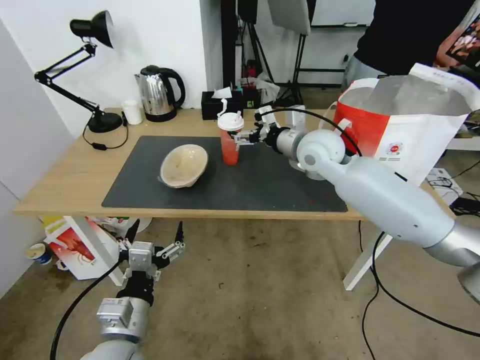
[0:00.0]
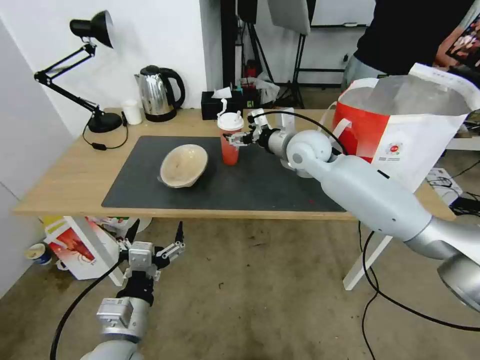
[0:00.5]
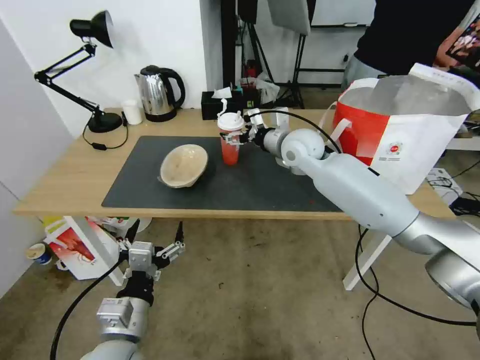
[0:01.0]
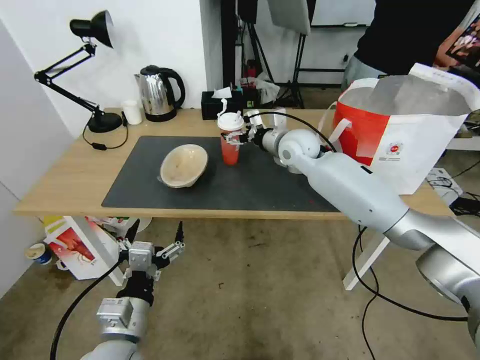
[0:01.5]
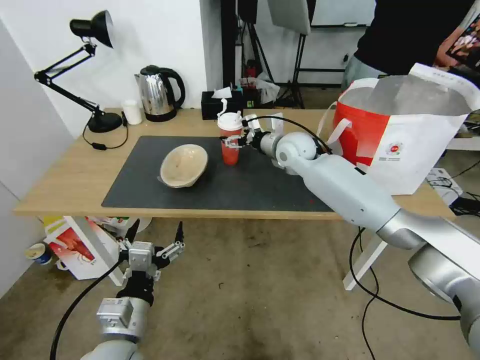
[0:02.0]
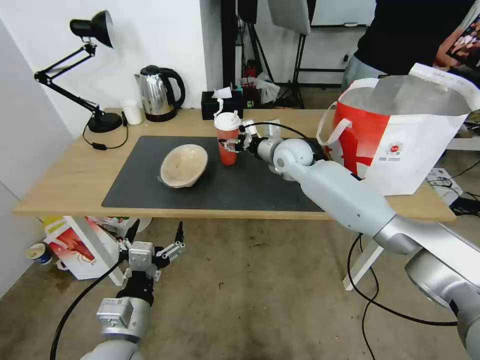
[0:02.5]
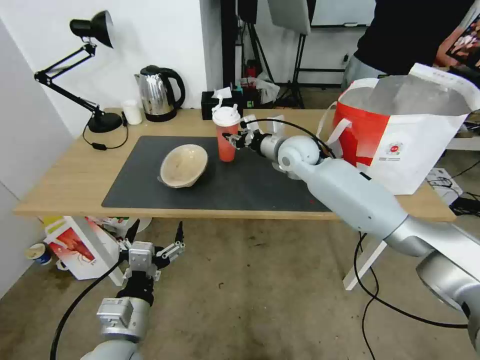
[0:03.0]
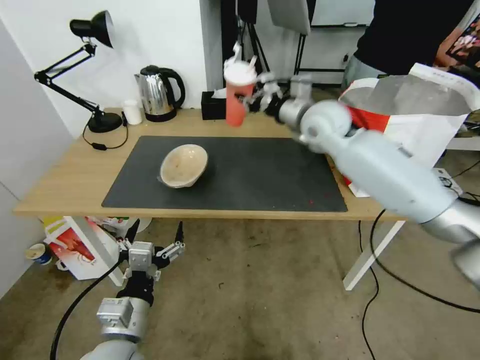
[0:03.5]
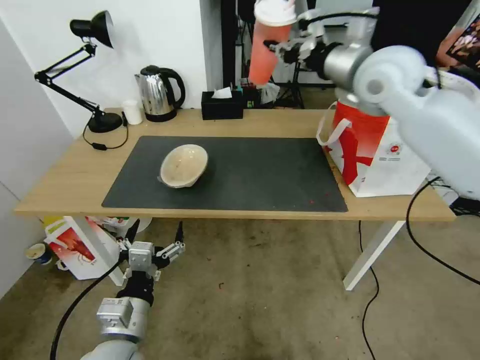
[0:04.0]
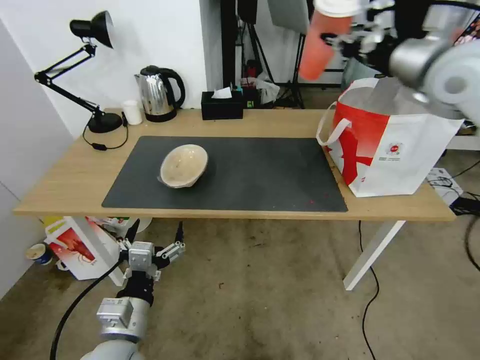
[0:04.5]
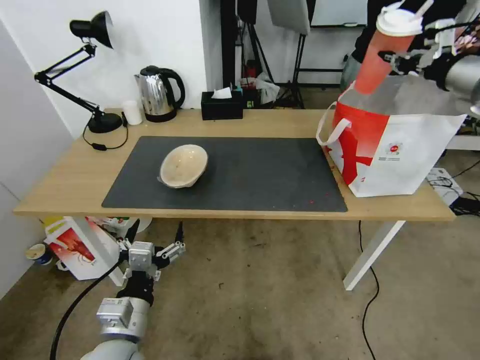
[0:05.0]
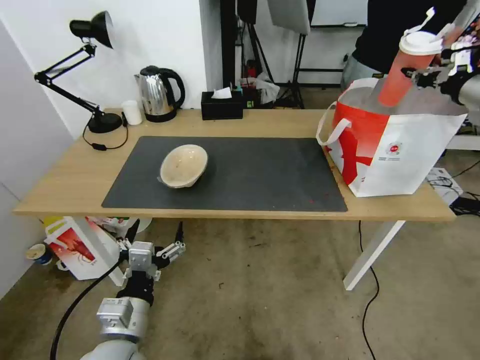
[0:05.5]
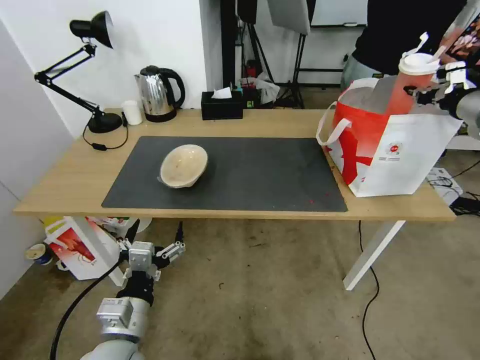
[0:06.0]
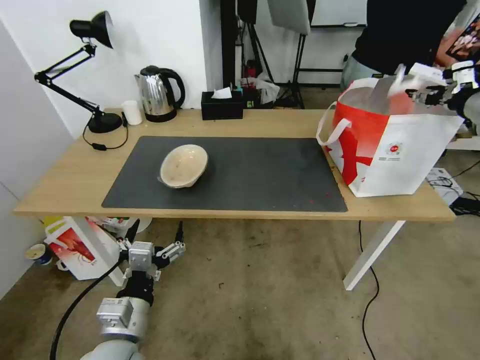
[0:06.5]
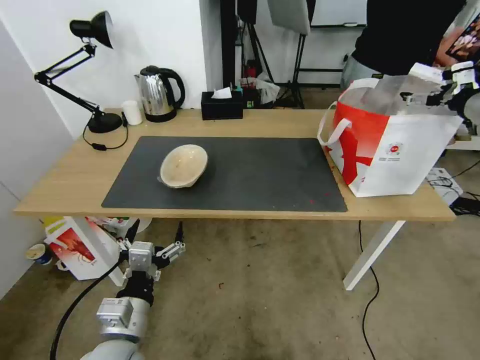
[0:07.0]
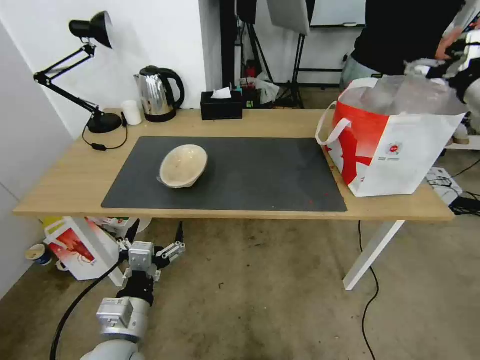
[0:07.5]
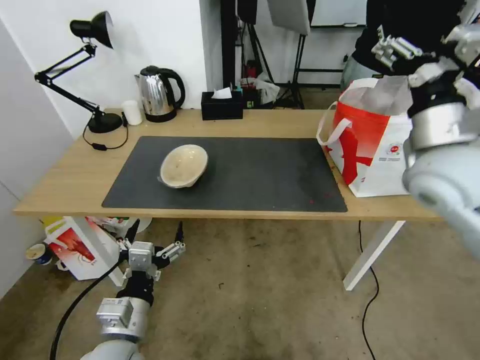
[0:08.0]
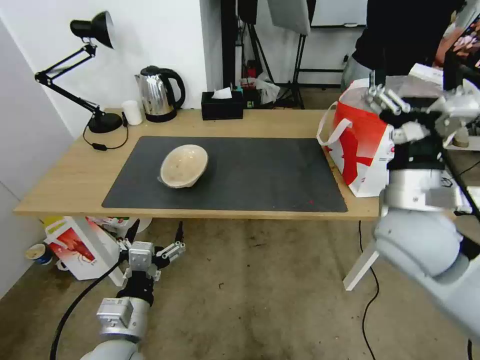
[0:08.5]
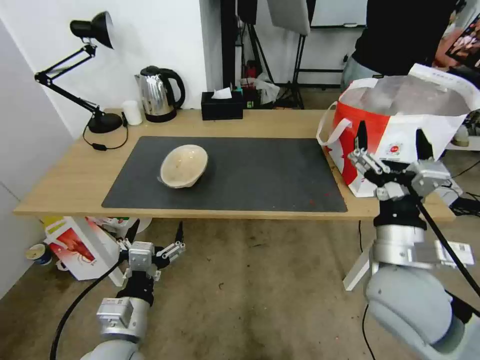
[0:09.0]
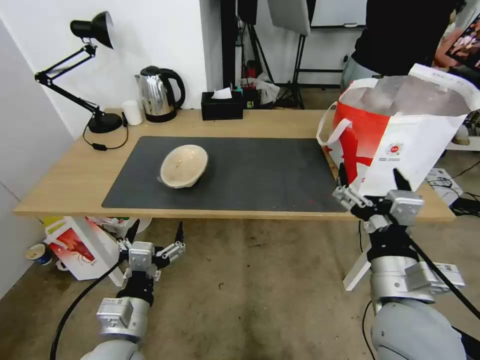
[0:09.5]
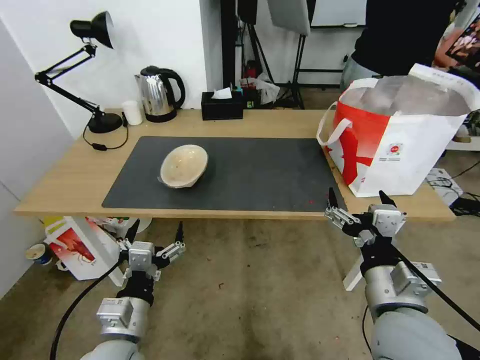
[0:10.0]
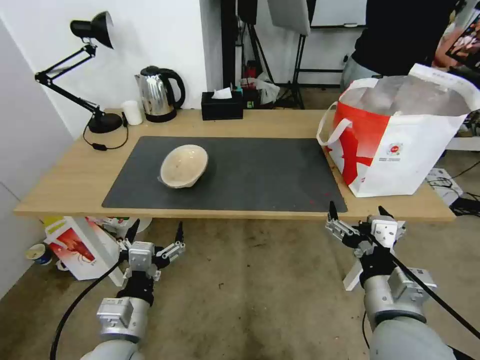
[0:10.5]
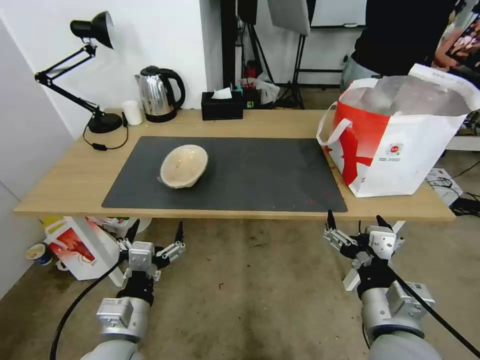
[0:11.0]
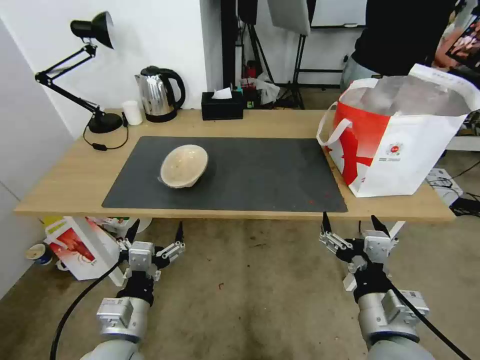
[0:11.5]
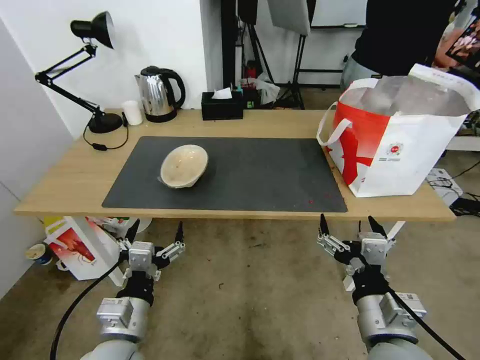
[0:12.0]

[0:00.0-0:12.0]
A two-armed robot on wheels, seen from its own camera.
Task of the whole recording: Pick up the trash from the table and place it into the takeout bag.
0:00.0 to 0:02.0: The right gripper is displaced forward by roughly 5 cm.
0:02.0 to 0:04.0: The right gripper heads upward and to the right, covering about 25 cm, and closes up.
0:04.0 to 0:06.0: The right gripper is displaced to the right by approximately 25 cm.
0:06.0 to 0:08.0: The right gripper shifts about 25 cm to the left and backward, and opens up.
0:08.0 to 0:10.0: The right gripper shifts roughly 25 cm backward, downward and to the left.
0:10.0 to 0:12.0: There are only small adjustments of the grippers.

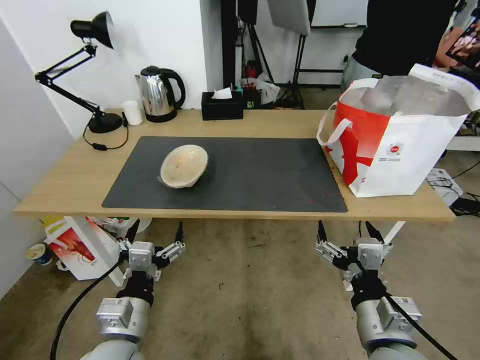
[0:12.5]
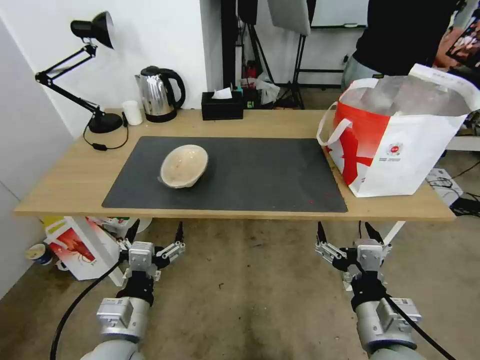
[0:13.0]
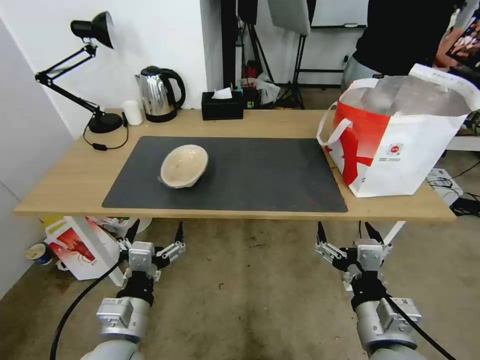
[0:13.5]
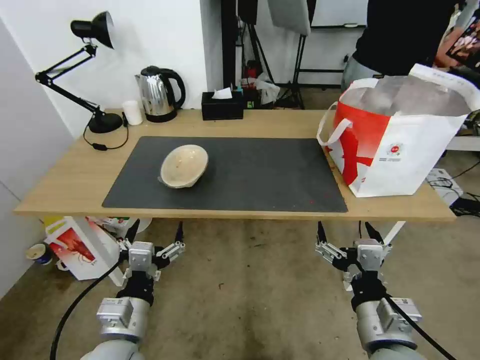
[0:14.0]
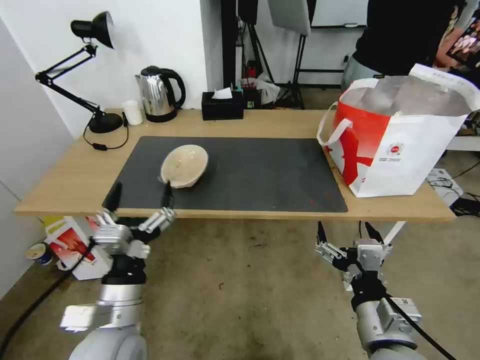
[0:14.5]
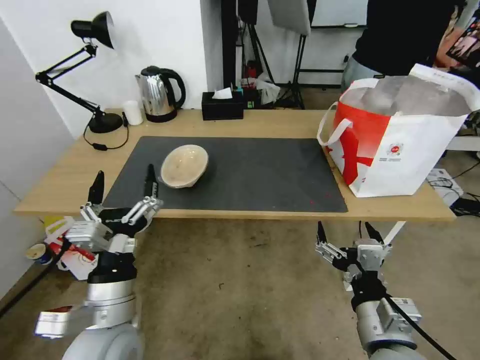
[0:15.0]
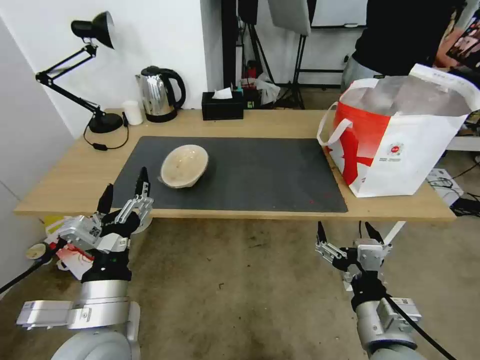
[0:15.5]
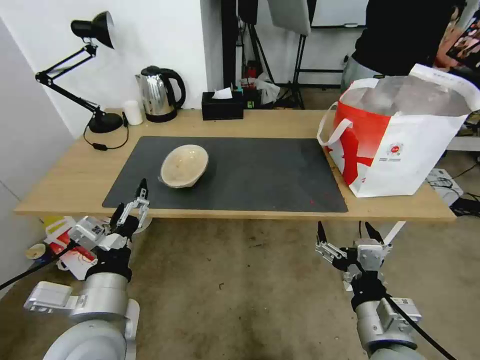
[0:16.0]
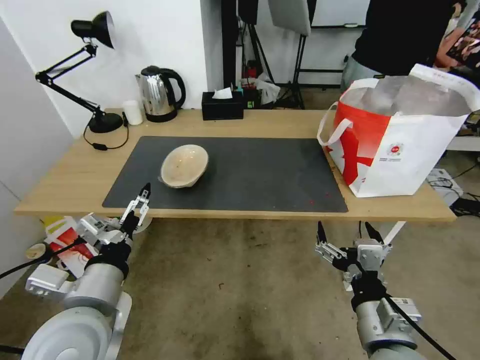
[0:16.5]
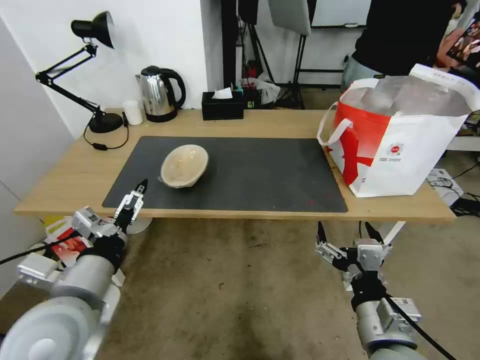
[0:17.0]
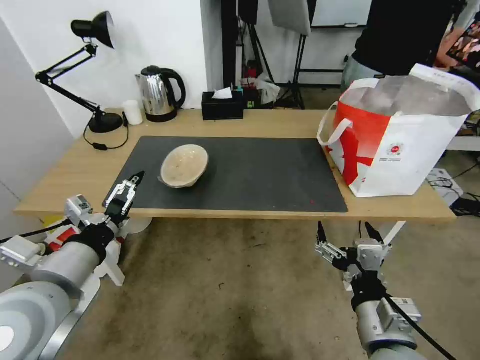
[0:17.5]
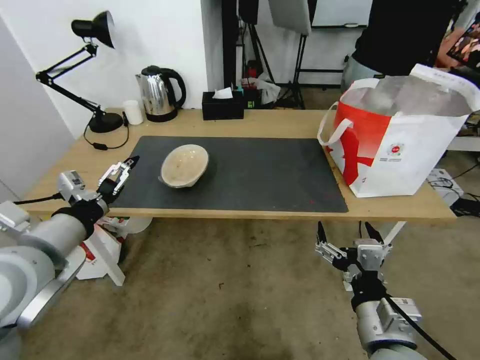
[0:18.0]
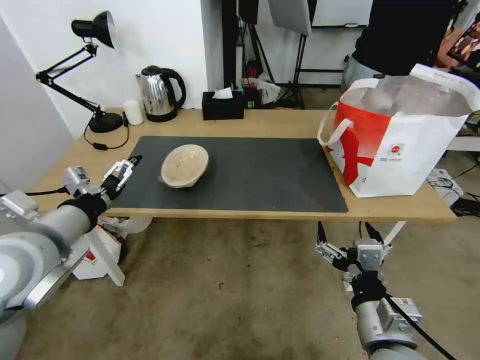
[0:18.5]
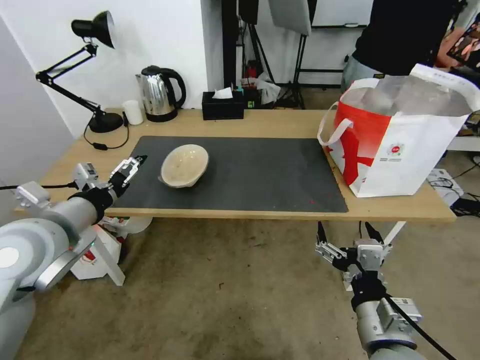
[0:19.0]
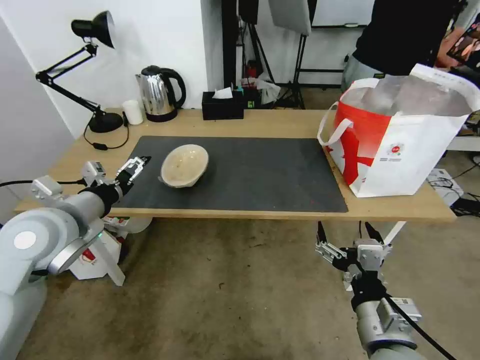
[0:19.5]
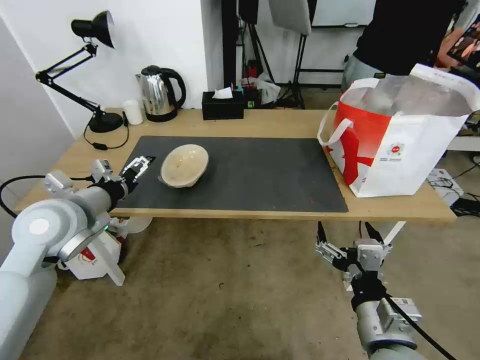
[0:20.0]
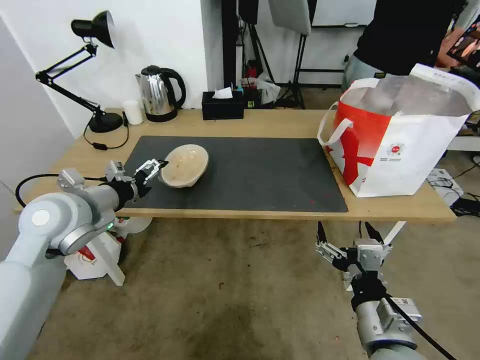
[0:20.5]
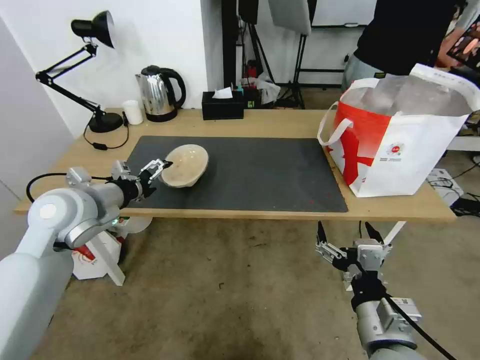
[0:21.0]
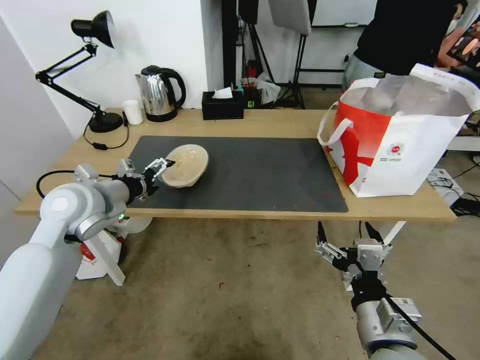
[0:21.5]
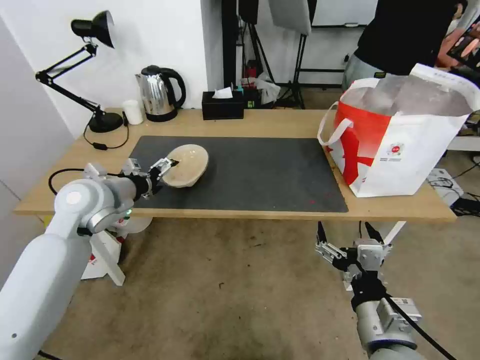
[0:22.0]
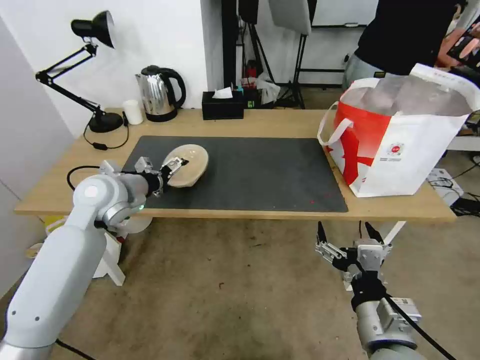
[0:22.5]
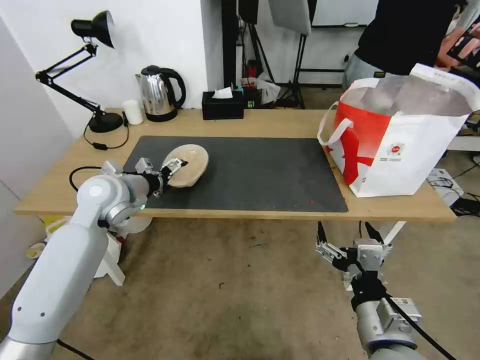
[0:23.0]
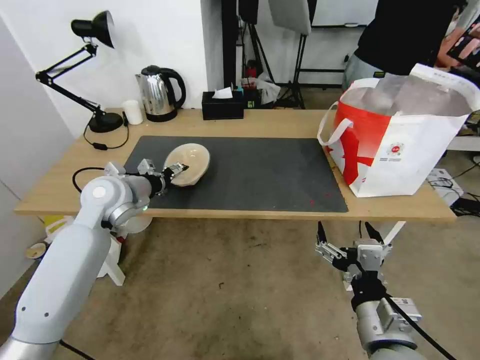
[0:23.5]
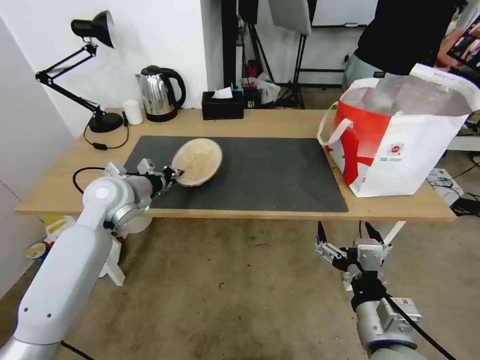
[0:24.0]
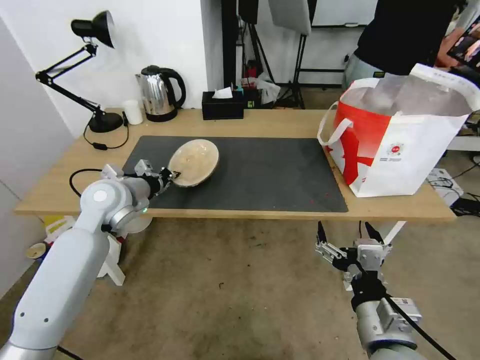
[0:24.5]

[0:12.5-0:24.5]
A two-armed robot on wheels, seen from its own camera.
Task of the whole recording: Pick up the trash from the table and place it into the takeout bag.
0:14.5 to 0:16.5: The left gripper shifts roughly 5 cm upward.
0:16.5 to 0:18.5: The left gripper heads to the left, forward and upward, covering approximately 15 cm.
0:18.5 to 0:20.5: The left gripper shifts approximately 10 cm forward.
0:20.5 to 0:22.5: The left gripper heads forward, covering some 10 cm.
0:22.5 to 0:24.5: The left gripper closes its fingers.

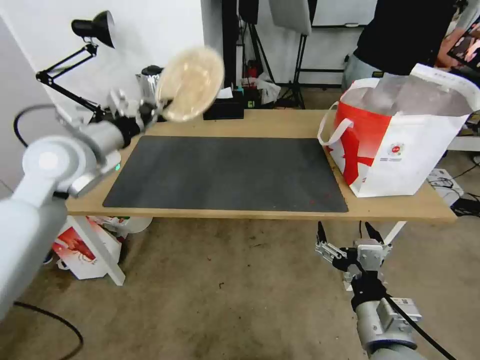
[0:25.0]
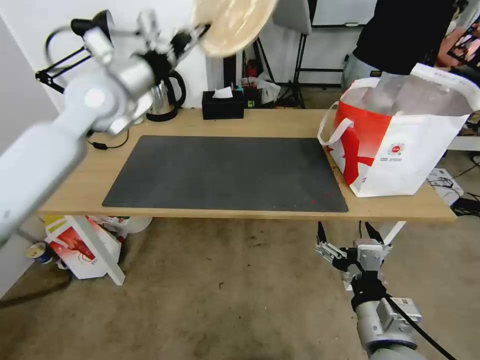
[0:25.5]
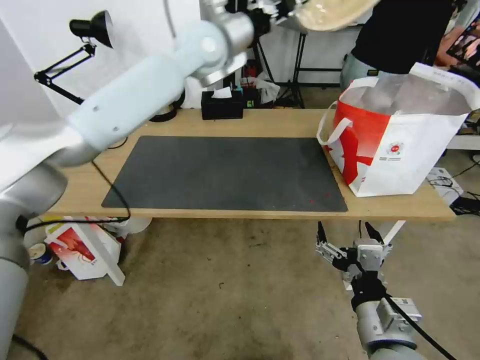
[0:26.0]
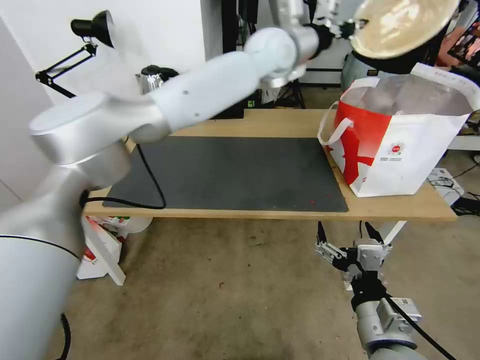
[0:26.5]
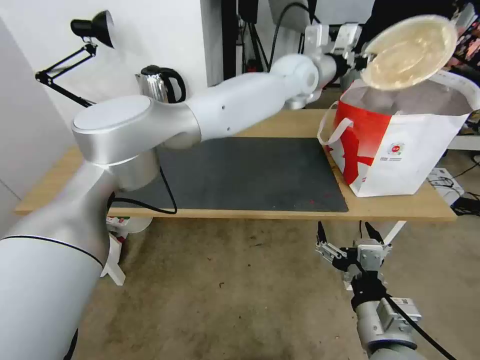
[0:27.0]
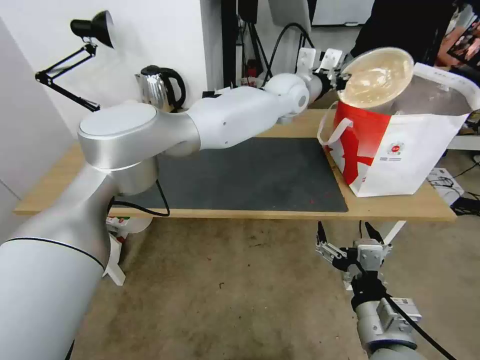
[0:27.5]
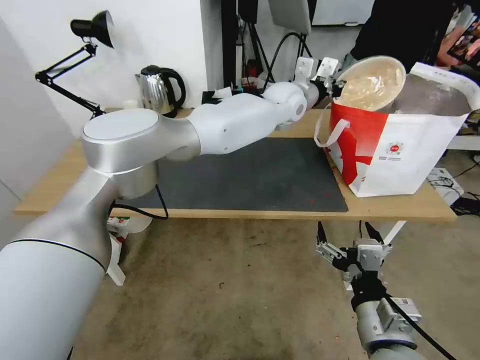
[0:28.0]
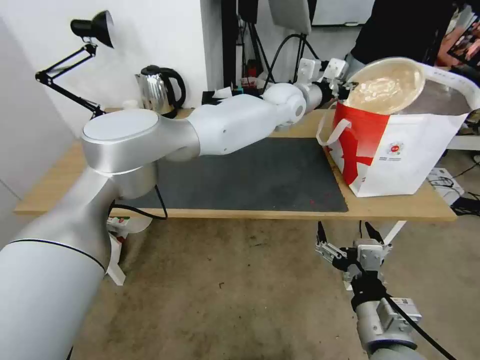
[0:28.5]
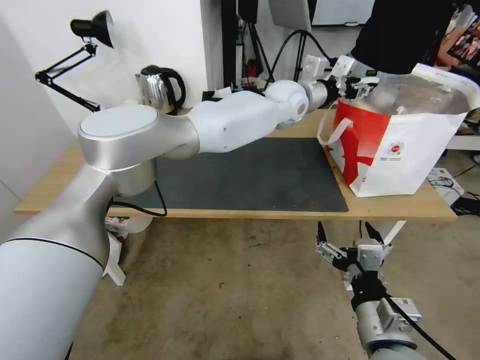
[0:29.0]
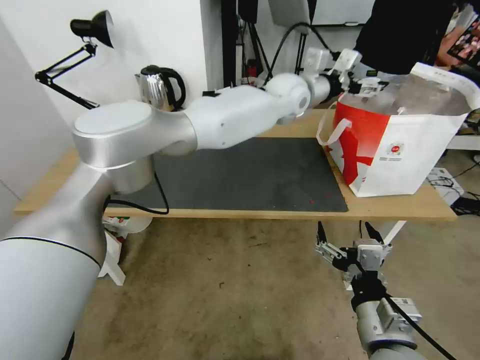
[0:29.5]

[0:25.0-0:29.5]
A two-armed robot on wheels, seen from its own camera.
Task of the whole recording: Pick up the trash from the table and place it into the takeout bag.
0:25.0 to 0:27.0: The left gripper shifts about 50 cm to the right and forward.
0:27.0 to 0:29.5: The left gripper opens.
